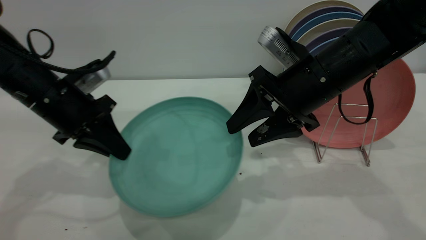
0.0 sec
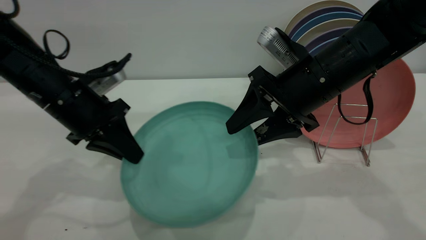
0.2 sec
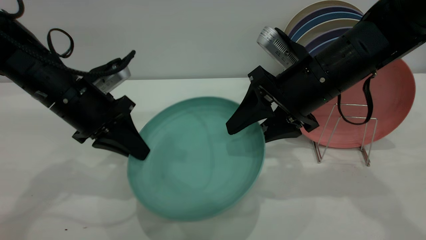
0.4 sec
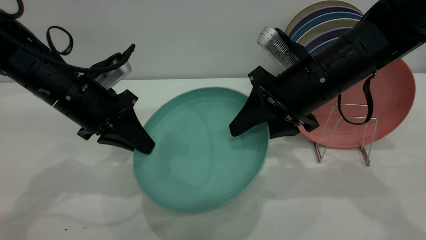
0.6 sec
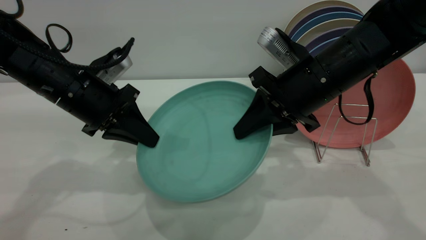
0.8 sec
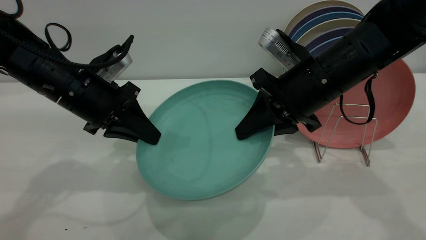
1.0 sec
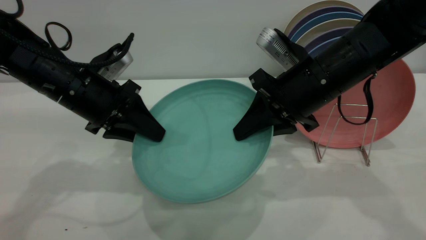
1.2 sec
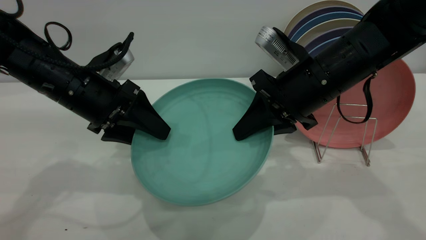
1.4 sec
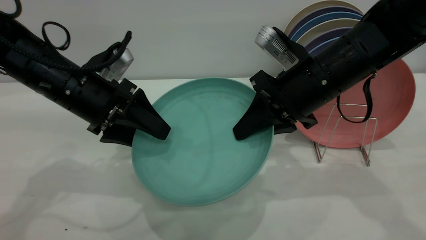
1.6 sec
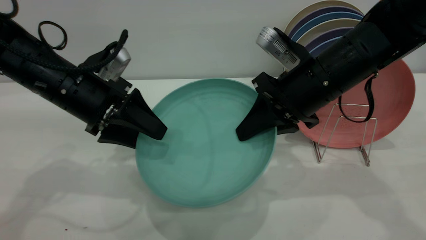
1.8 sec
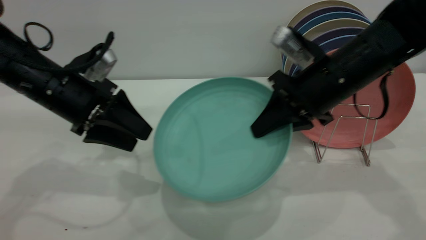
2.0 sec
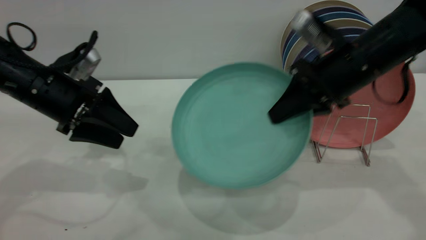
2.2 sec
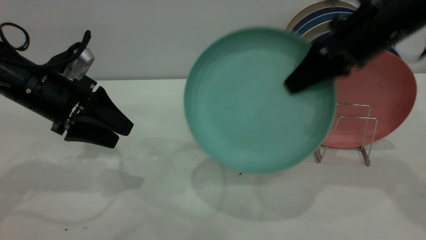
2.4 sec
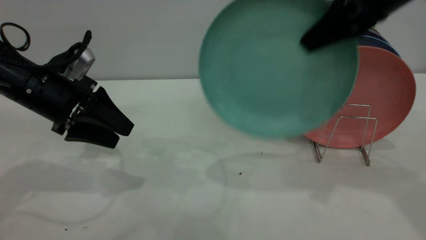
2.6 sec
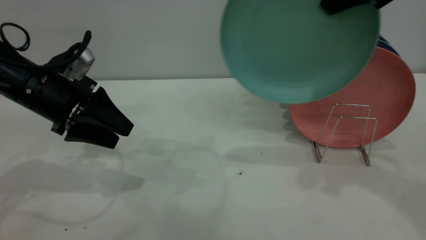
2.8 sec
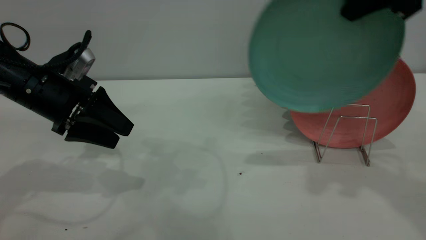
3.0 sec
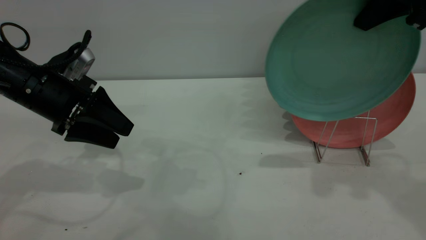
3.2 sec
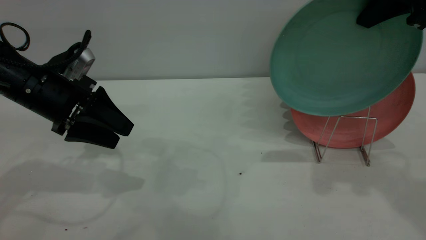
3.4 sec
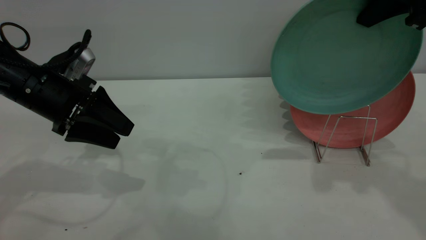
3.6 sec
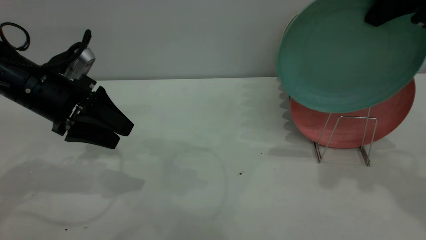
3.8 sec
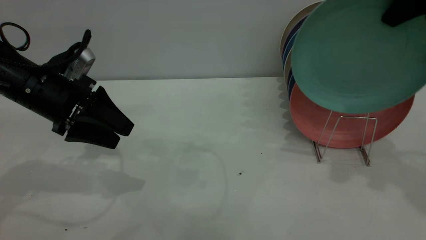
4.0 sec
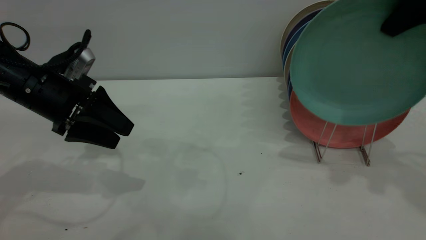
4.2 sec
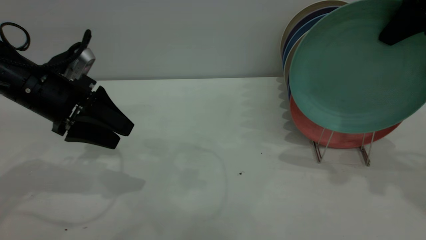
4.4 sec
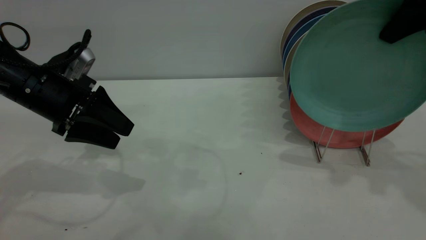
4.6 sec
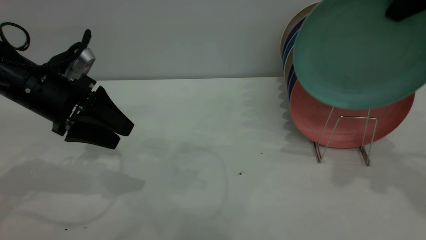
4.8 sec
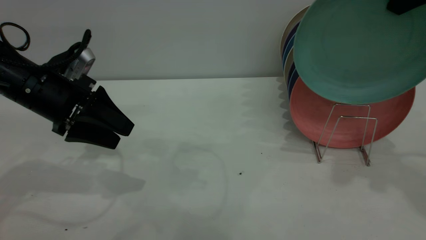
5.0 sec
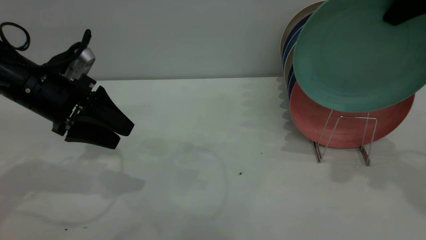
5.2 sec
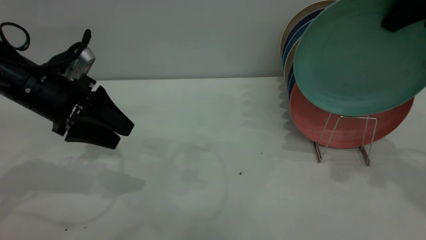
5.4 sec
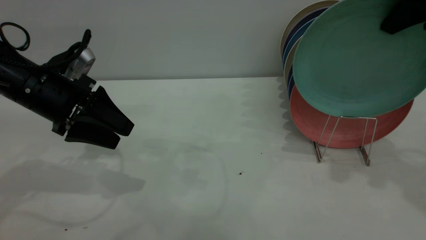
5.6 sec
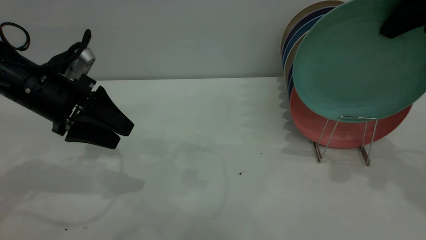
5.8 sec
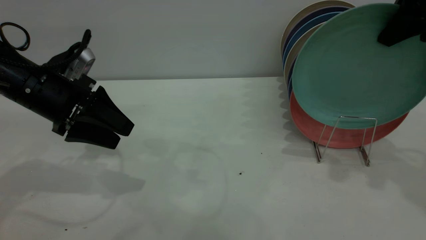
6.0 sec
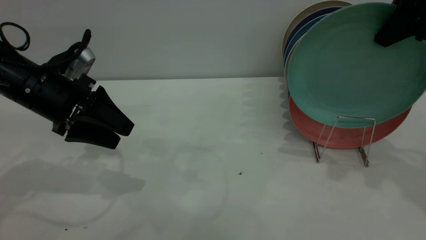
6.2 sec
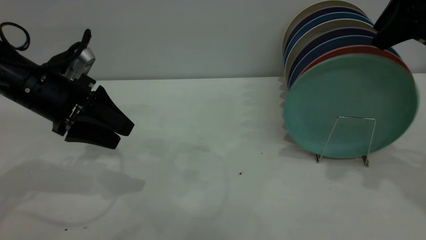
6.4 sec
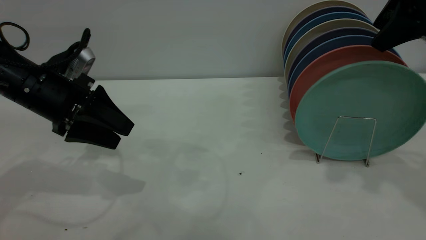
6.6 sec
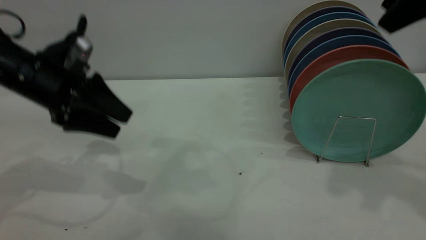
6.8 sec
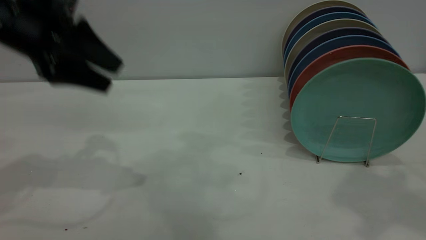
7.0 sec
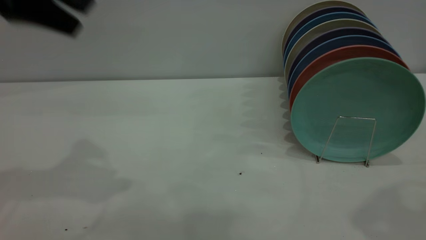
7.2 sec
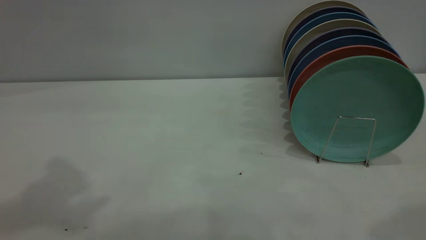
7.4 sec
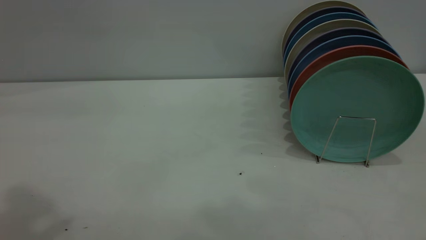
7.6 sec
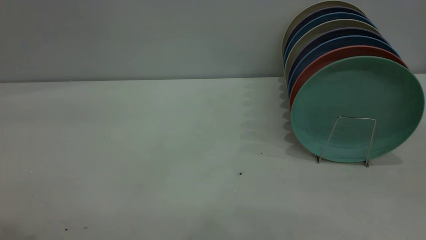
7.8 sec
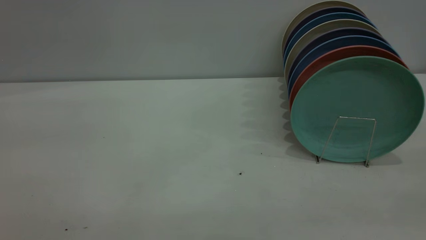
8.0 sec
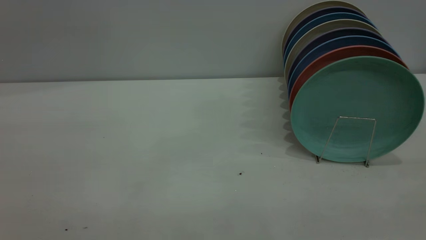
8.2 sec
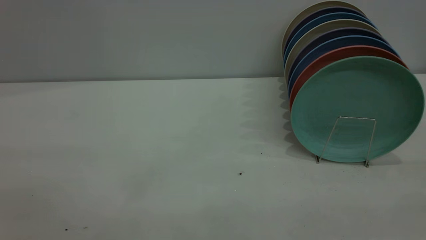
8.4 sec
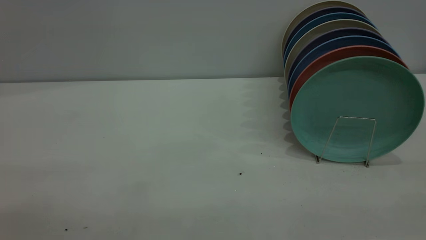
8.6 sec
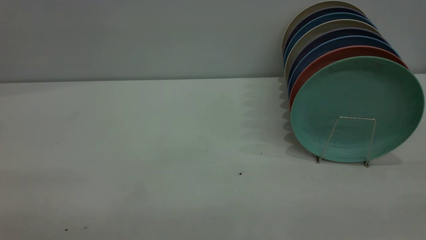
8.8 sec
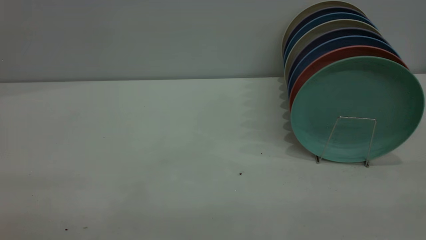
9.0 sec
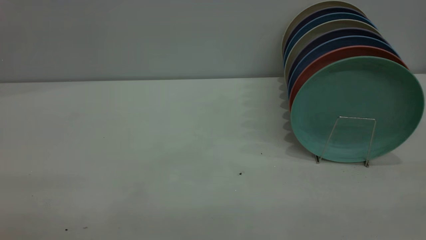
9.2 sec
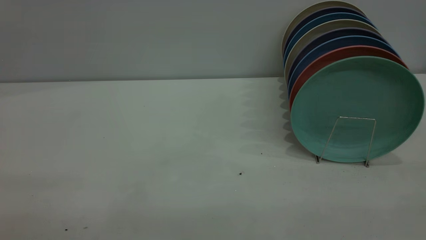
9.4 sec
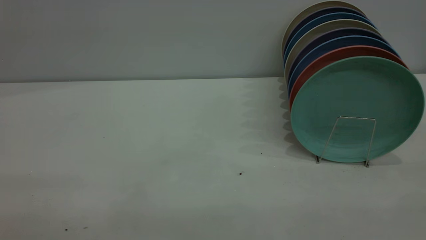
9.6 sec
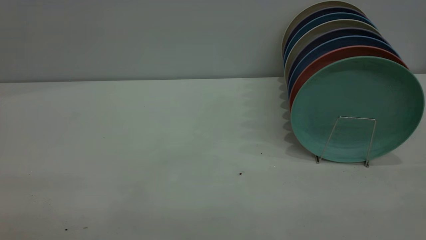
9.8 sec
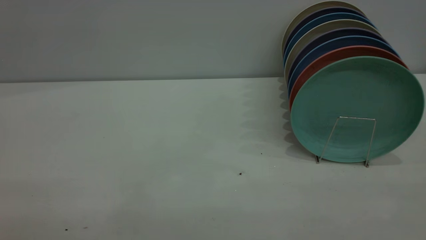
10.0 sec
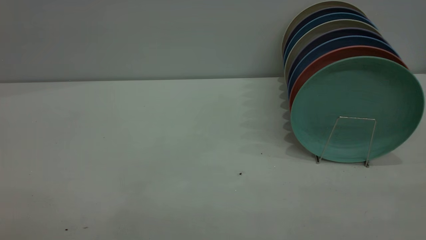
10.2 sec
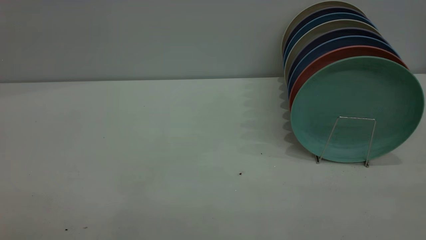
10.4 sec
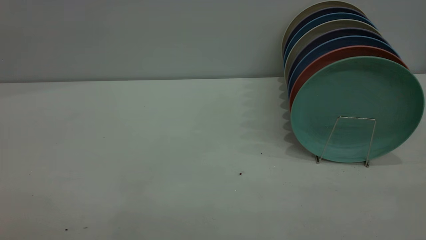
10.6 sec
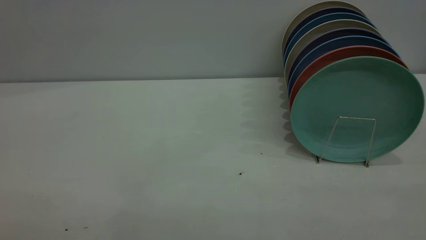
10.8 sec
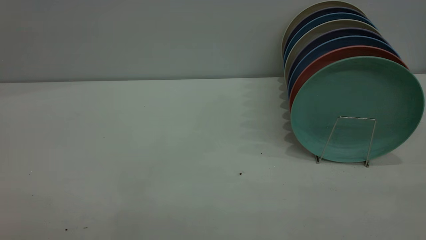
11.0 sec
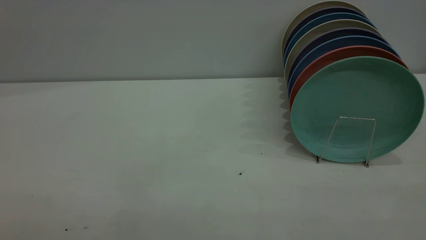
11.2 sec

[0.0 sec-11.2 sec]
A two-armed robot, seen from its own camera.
Task of the whole recording: the left gripper grasp the green plate, the left gripper pass the green plate to the right gripper, and the right gripper place the green plate on the plate rack.
Step, 0.0 sec to 2.0 sec: Pass the plate from the left gripper to the right gripper.
Step, 2.2 sec to 6.8 sec: Place the plate on the shelf.
0.0 sec to 1.6 sec: The right gripper closes. Meanwhile the left gripper opens.
1.6 sec to 3.2 sec: The right gripper moves upward and to the right, some 20 cm, while the left gripper is displaced to the left by roughly 5 cm.
3.2 sec to 4.8 sec: The grippers stay close to where they were, moving slightly.
4.8 sec to 6.4 sec: The right gripper opens its fingers.
6.4 sec to 8.0 sec: The left gripper goes roughly 35 cm upward and backward; the right gripper heads backward, covering roughly 30 cm.
